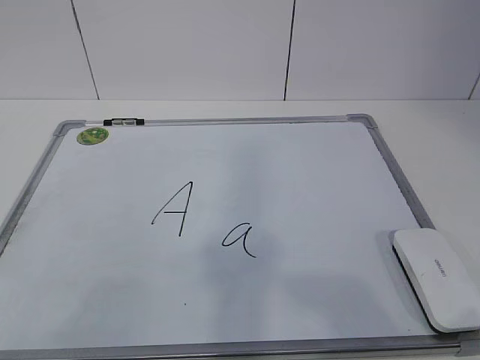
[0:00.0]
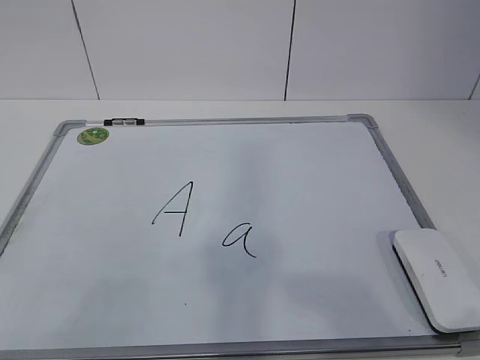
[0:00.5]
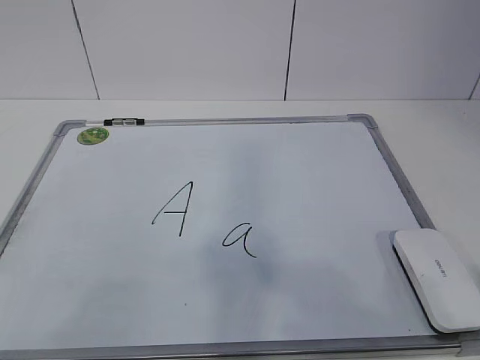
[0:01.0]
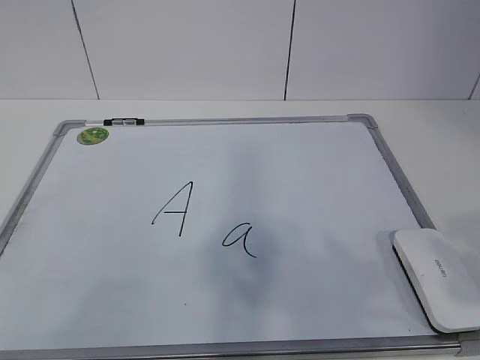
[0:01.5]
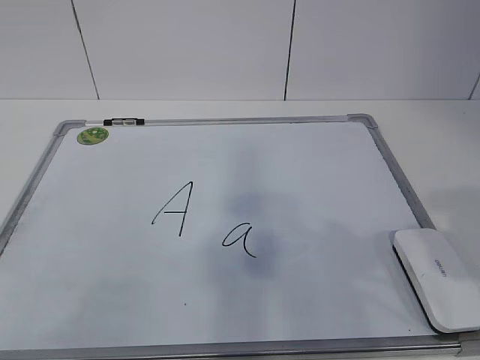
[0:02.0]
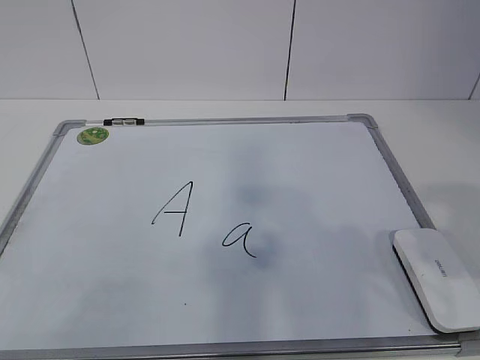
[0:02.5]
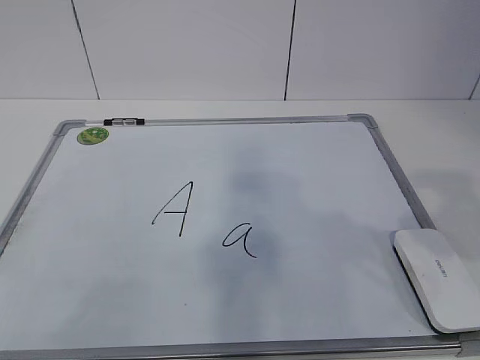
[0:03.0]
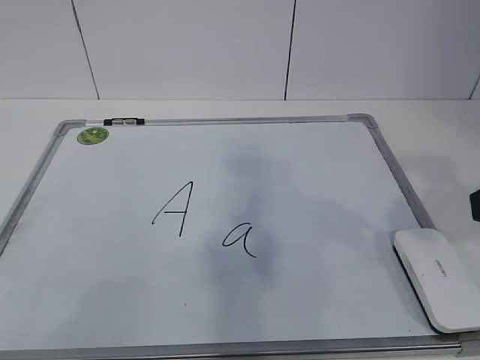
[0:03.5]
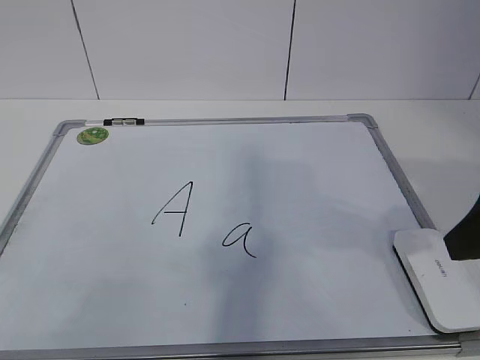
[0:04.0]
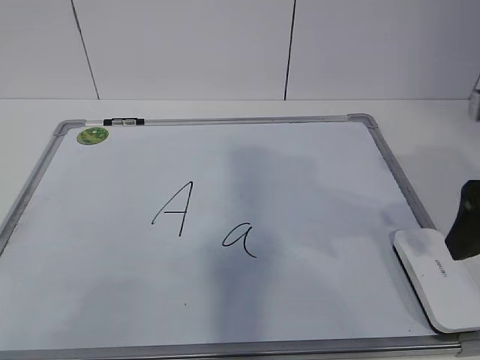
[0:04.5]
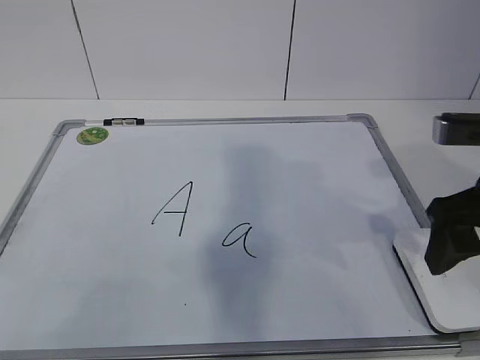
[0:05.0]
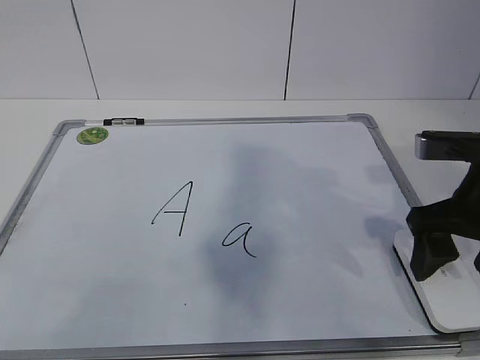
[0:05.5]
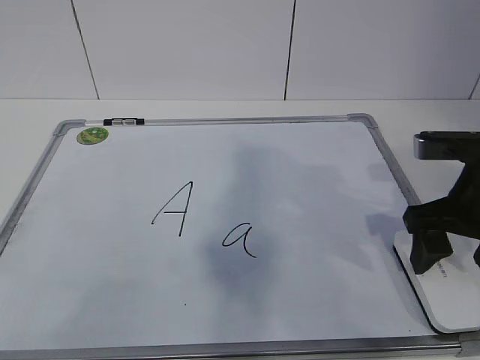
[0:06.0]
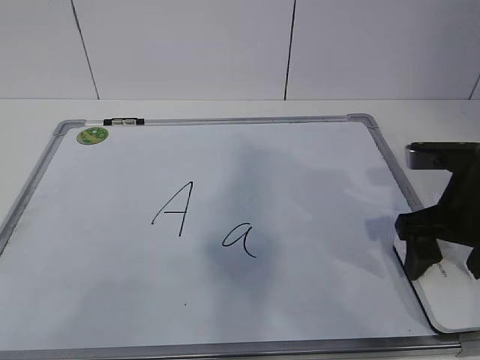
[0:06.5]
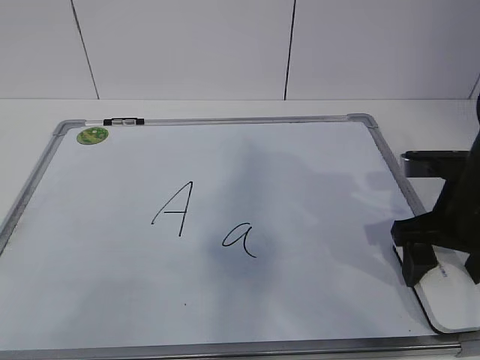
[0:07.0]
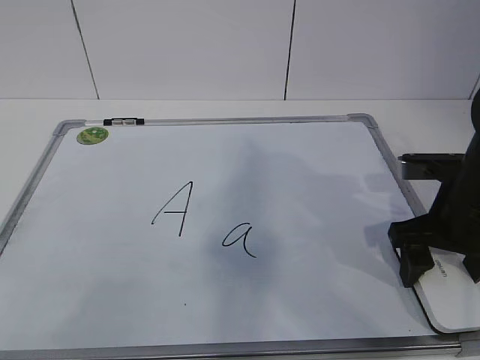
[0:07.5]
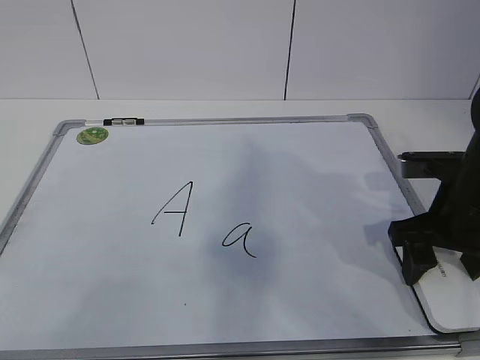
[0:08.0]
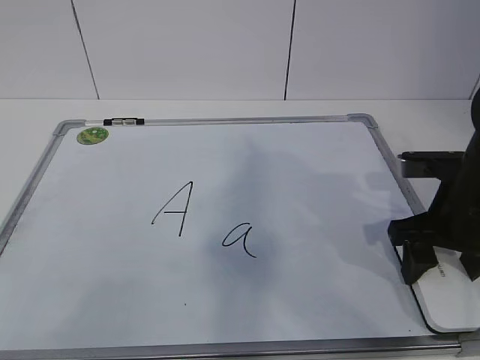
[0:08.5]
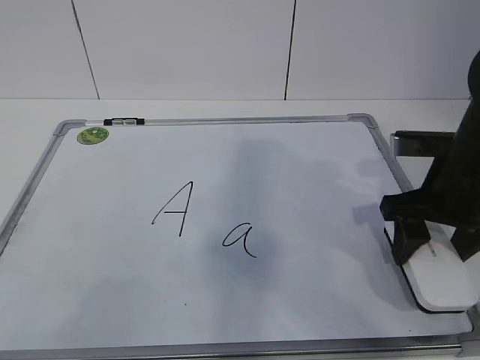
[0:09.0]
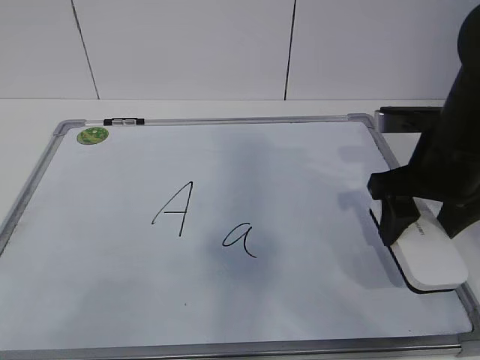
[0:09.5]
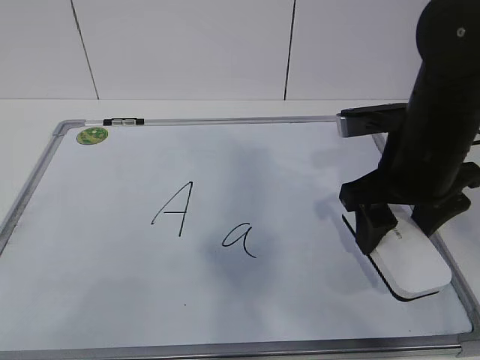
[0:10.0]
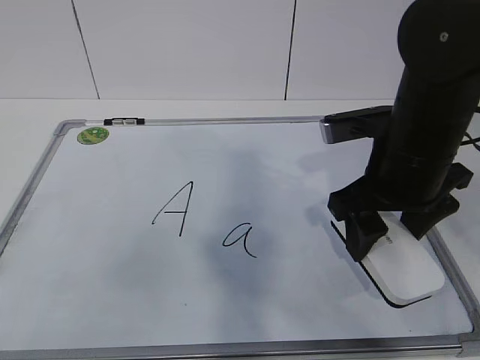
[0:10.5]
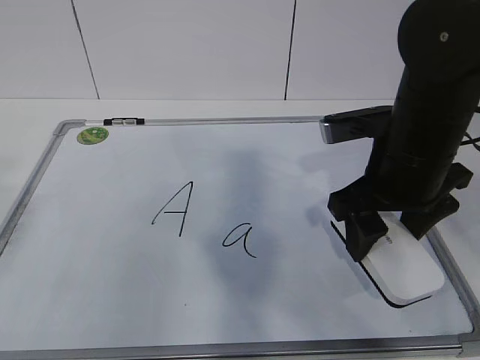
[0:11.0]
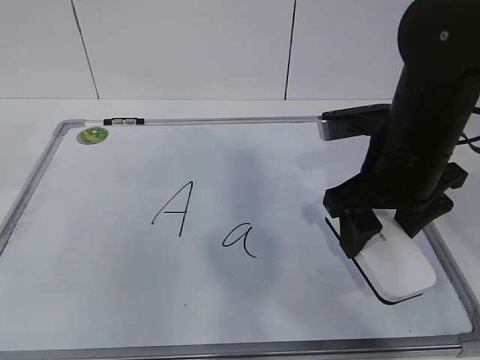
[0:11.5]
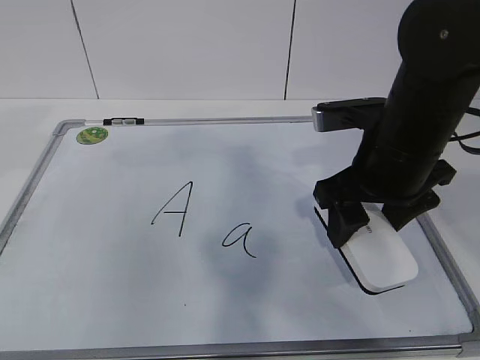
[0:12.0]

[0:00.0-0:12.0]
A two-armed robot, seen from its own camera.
Task of the whole recording: pick up the eraser on the blackboard and erase the letter "a".
Step, 0:00.0 to 0:06.0: Grab the eraser with your right hand.
0:02.0 to 0:04.0: The right gripper heads forward, covering roughly 10 cm.
0:04.0 to 0:06.0: The right gripper is displaced forward and downward by some 10 cm, and opens up.
0:06.0 to 0:08.0: The right gripper closes up.
0:08.0 to 0:10.0: The right gripper heads to the left and upward, covering some 10 cm.

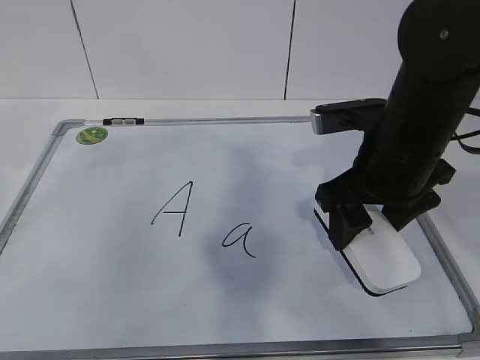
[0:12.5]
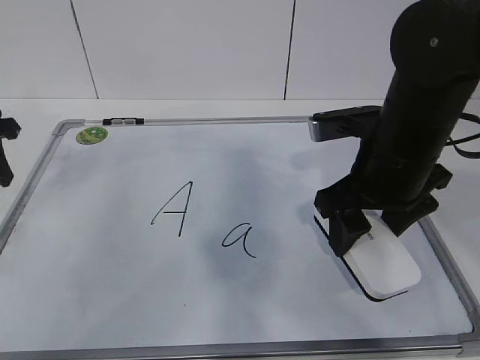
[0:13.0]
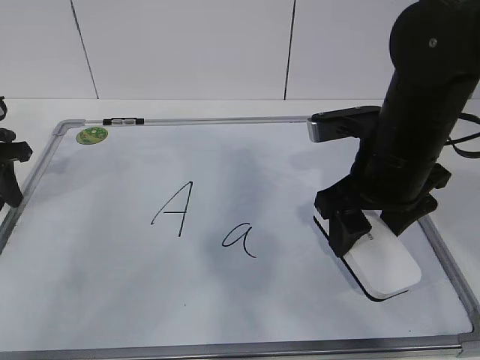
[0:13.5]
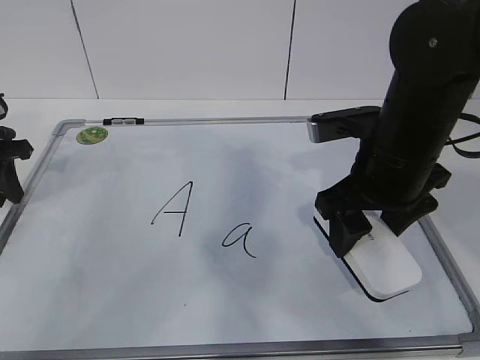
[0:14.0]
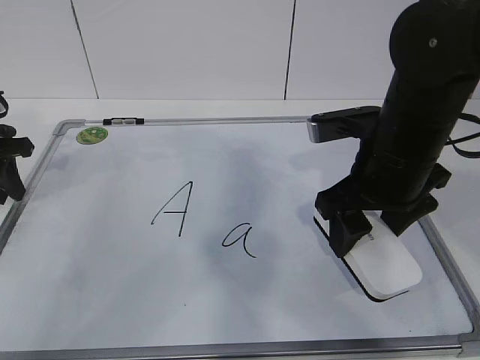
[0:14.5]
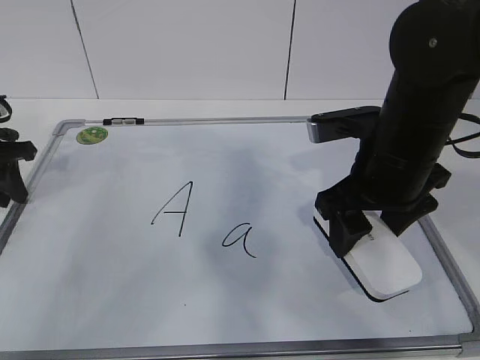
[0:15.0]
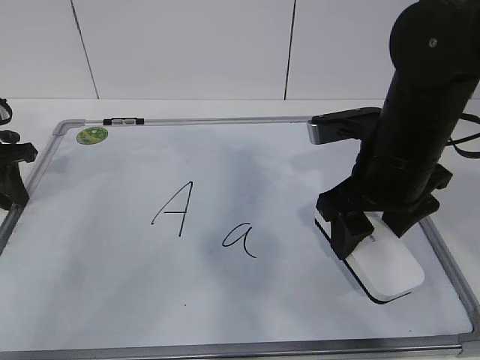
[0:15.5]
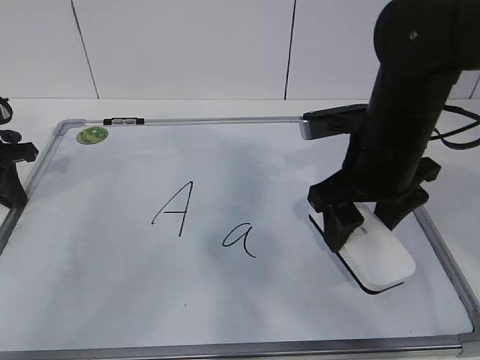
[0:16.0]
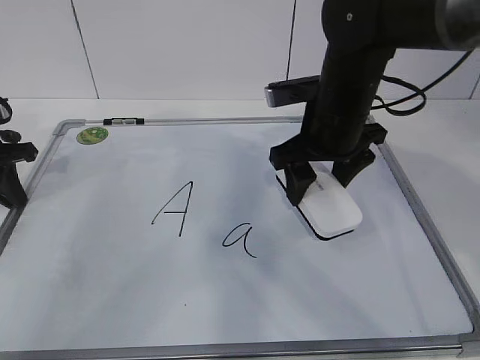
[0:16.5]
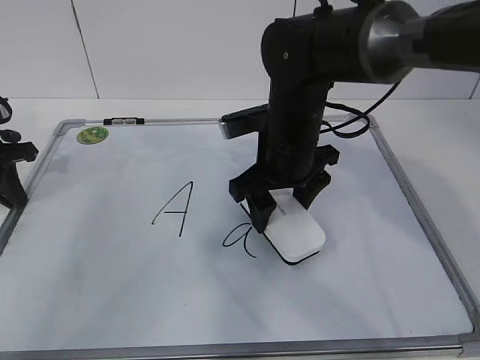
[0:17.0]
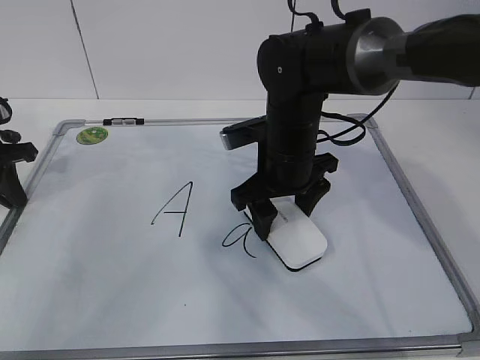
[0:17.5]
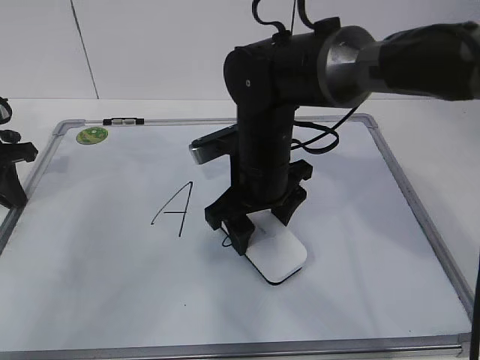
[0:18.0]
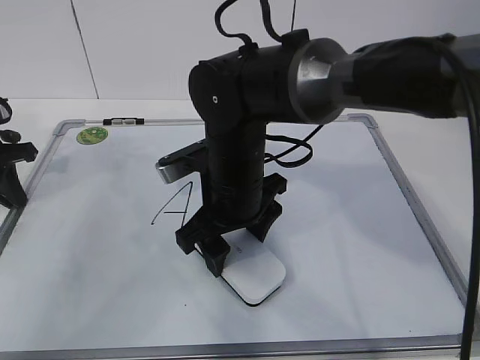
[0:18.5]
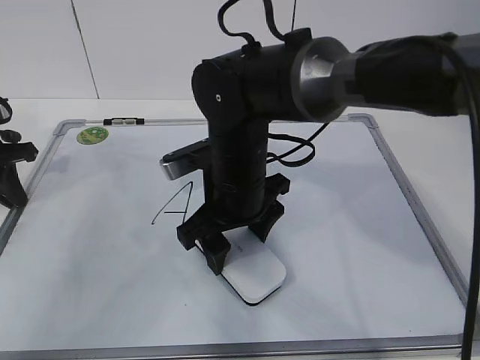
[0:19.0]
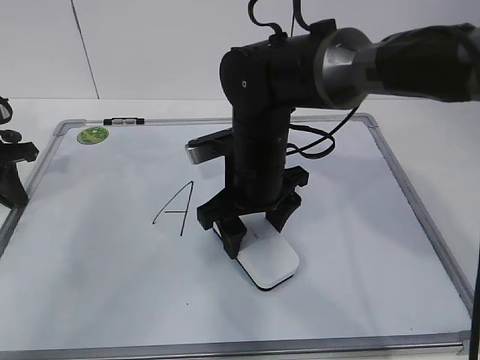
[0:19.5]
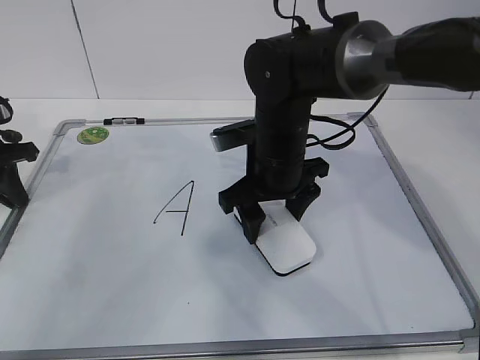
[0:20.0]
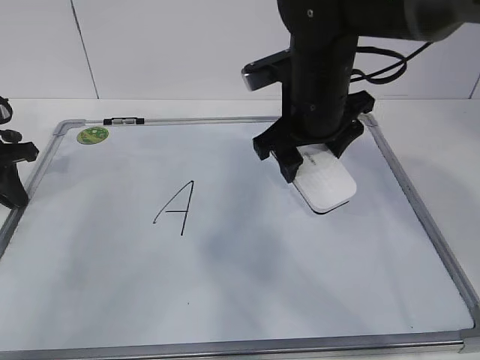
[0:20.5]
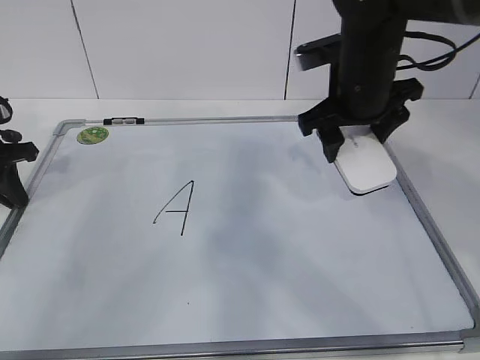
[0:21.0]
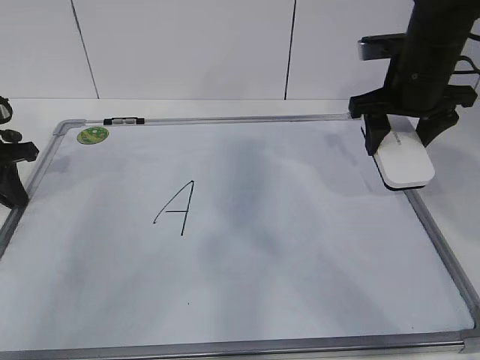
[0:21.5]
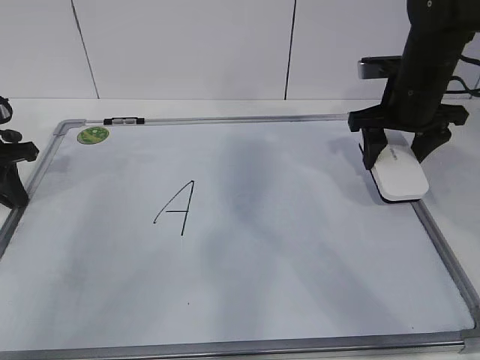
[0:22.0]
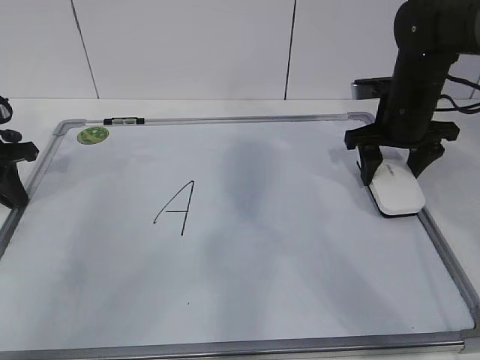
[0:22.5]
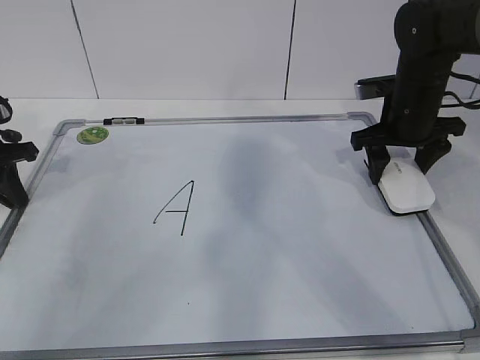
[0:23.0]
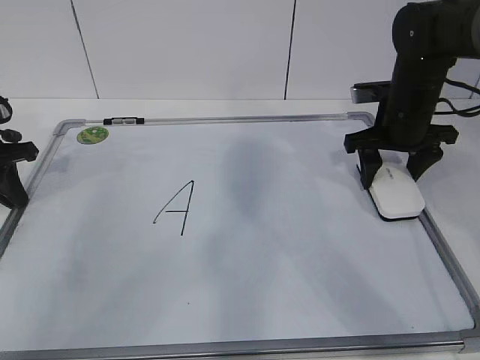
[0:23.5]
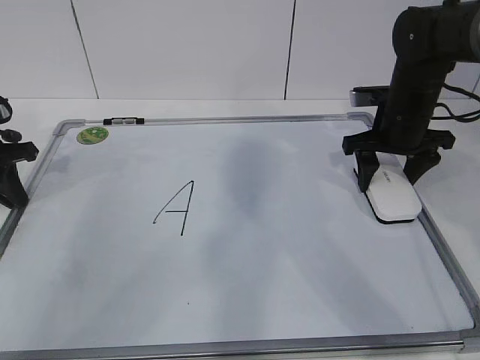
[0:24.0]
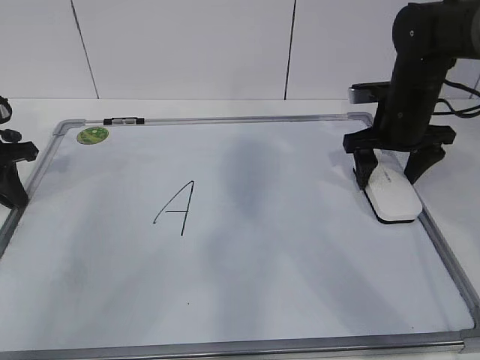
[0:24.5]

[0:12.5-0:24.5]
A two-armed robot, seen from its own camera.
Task of the whole recording: pick up the eraser on the blackboard and erase the letter "a".
Step, 0:13.5 to 0:16.5: Erase the letter a with your right hand.
Step, 0:17.0 to 0:20.0: Put down the eraser with your right hand.
0:12.5 to 0:14.5: The left gripper shifts some 10 cm downward.
0:14.5 to 0:16.5: The left gripper closes its fingers, while the right gripper heads forward, covering some 10 cm.
0:16.5 to 0:18.5: The right gripper goes about 15 cm to the left, backward and downward.
0:18.5 to 0:20.5: The right gripper moves to the right and upward, some 10 cm.
0:20.5 to 0:22.5: The right gripper moves to the right and forward, roughly 15 cm.
0:22.5 to 0:24.5: The right gripper opens up.

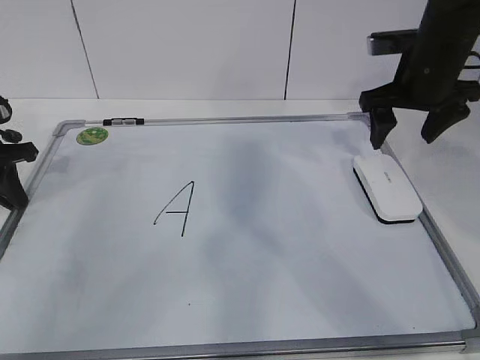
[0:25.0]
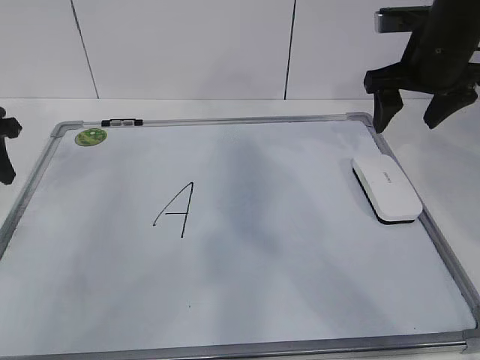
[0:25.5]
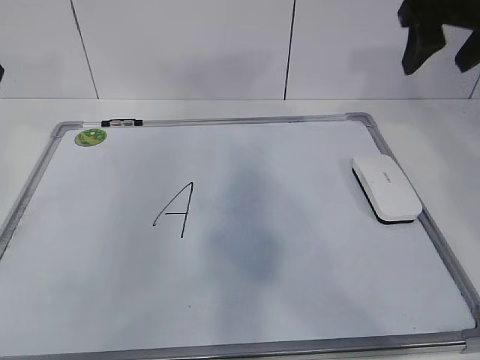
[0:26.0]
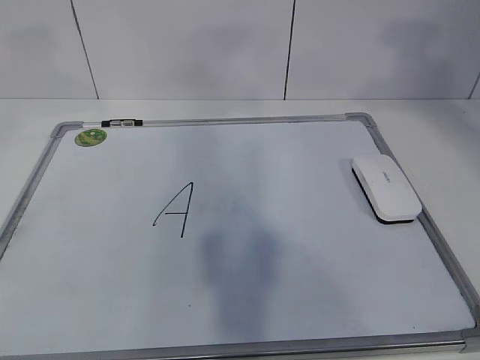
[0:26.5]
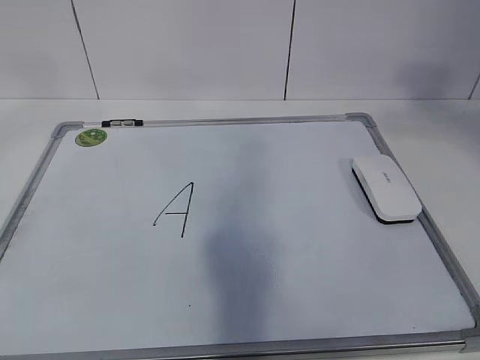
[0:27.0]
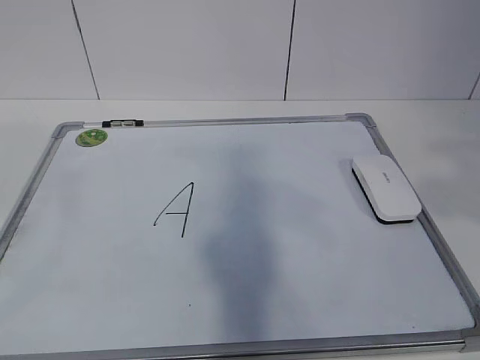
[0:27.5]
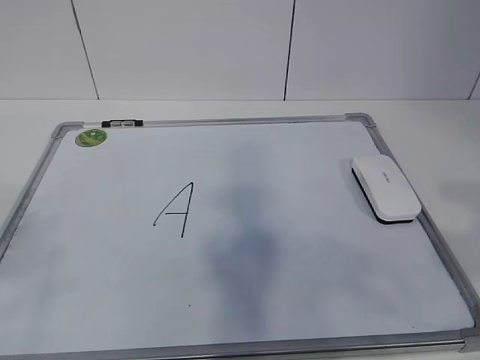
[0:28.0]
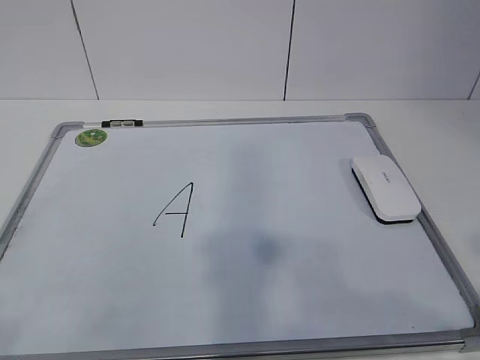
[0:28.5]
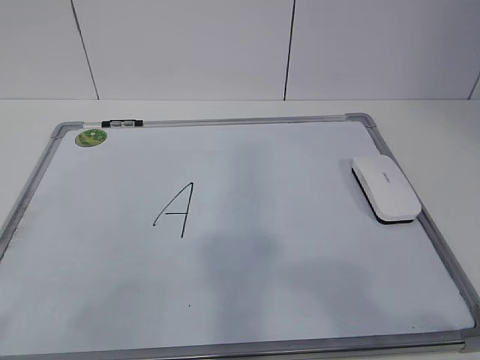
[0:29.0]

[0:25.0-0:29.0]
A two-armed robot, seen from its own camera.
Task of the whole recording: pick up the eraser on the blackboard and erase the letter "a".
0:25.0 to 0:27.0: The left gripper travels upward and backward by about 50 cm, and opens. The right gripper travels backward and upward by roughly 35 cm, and closes up.
0:27.0 to 0:29.0: The grippers both shift downward and backward by roughly 25 cm.
